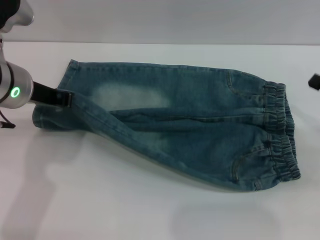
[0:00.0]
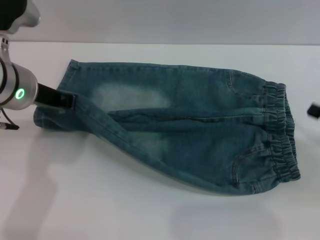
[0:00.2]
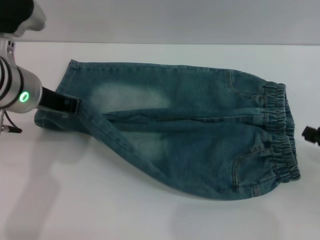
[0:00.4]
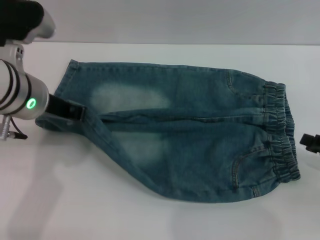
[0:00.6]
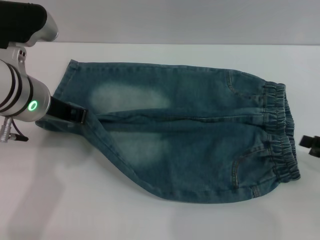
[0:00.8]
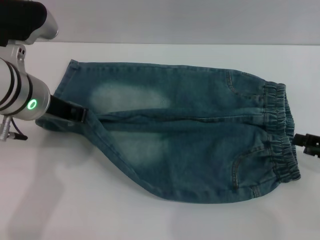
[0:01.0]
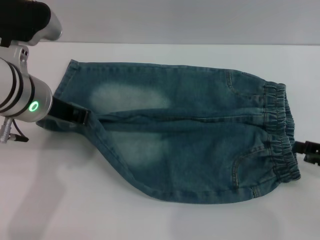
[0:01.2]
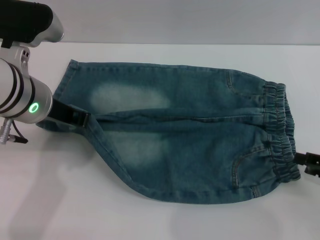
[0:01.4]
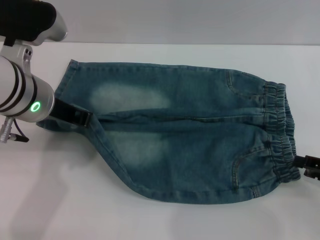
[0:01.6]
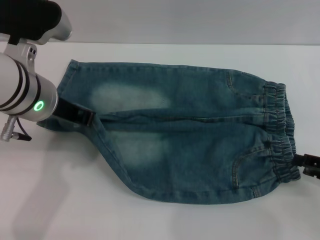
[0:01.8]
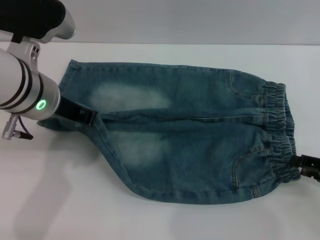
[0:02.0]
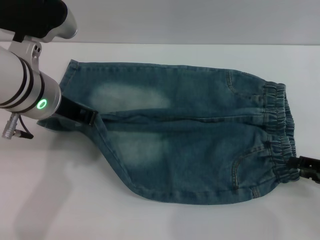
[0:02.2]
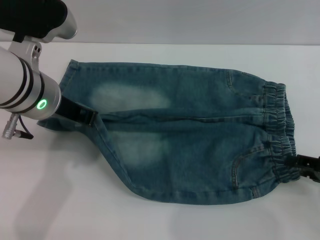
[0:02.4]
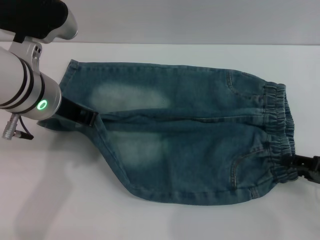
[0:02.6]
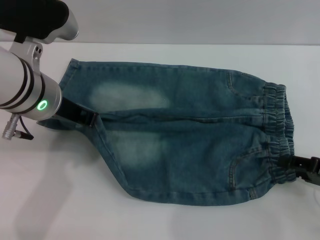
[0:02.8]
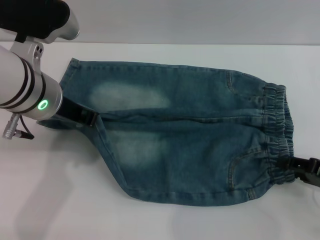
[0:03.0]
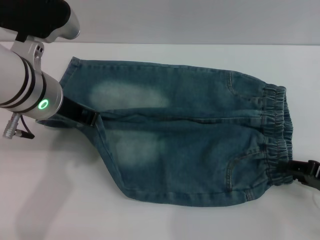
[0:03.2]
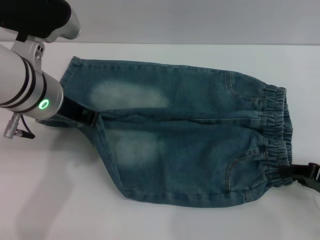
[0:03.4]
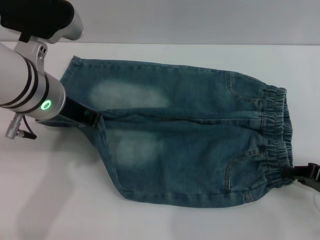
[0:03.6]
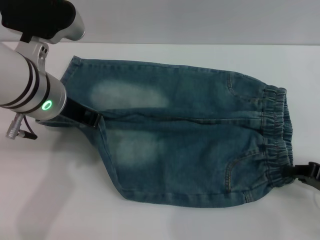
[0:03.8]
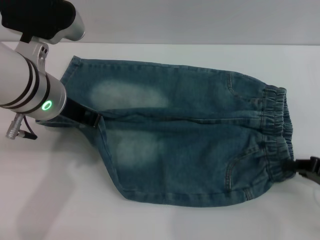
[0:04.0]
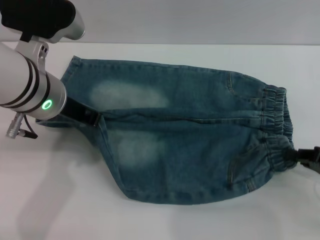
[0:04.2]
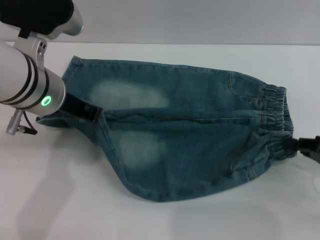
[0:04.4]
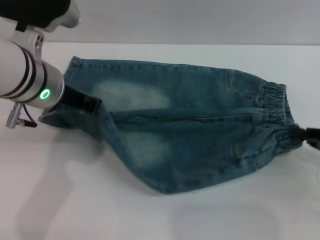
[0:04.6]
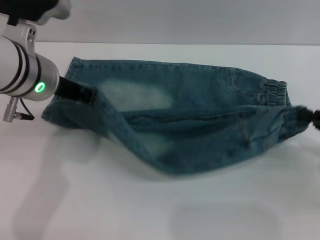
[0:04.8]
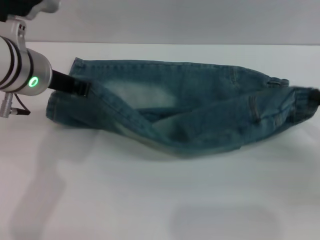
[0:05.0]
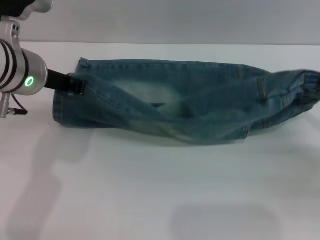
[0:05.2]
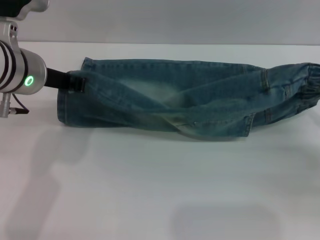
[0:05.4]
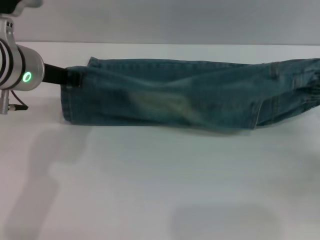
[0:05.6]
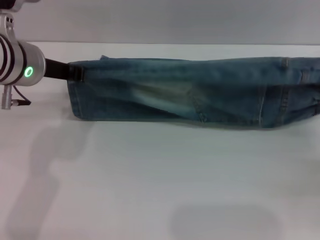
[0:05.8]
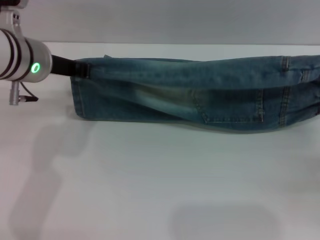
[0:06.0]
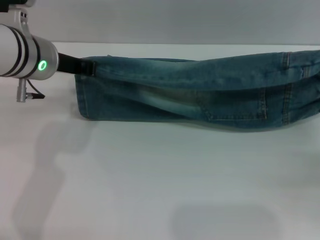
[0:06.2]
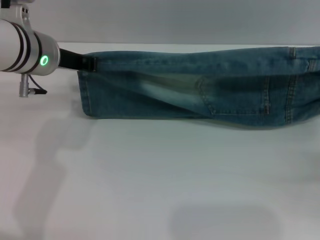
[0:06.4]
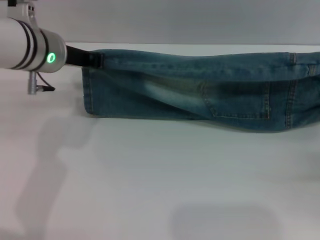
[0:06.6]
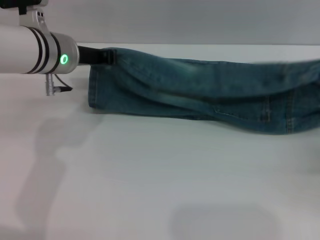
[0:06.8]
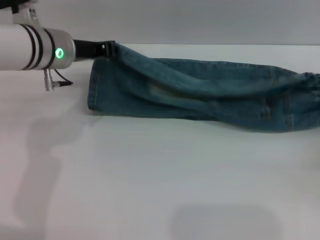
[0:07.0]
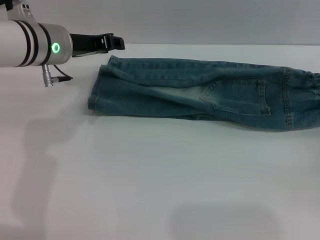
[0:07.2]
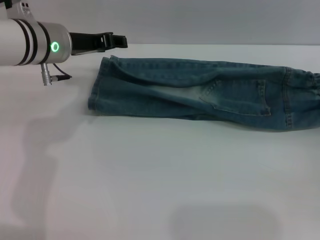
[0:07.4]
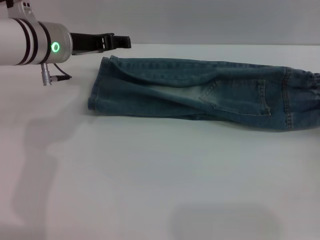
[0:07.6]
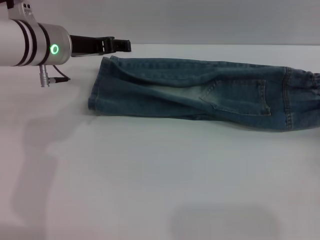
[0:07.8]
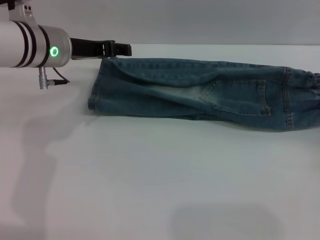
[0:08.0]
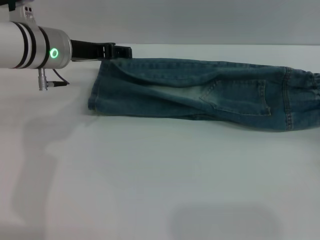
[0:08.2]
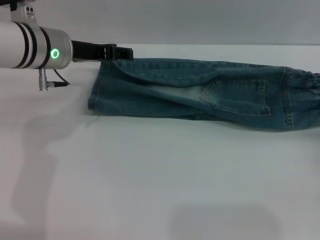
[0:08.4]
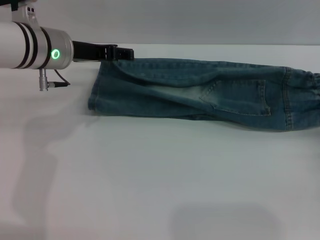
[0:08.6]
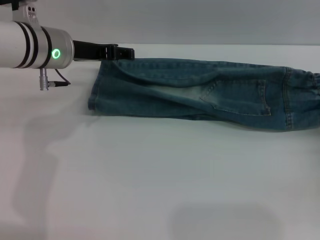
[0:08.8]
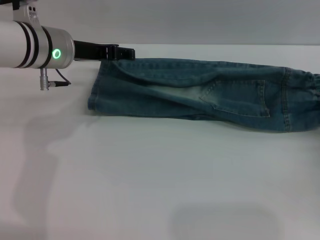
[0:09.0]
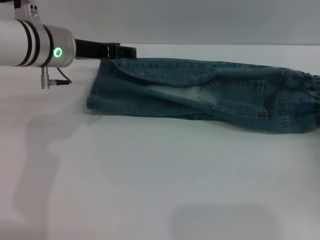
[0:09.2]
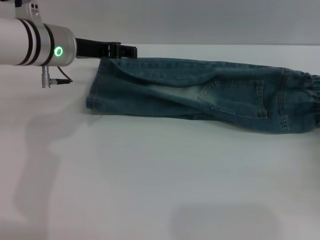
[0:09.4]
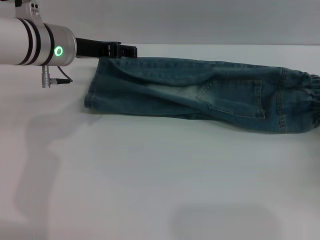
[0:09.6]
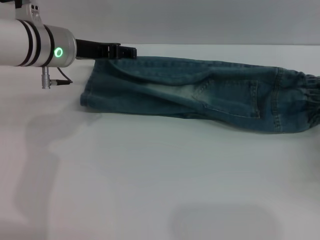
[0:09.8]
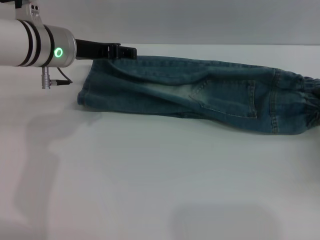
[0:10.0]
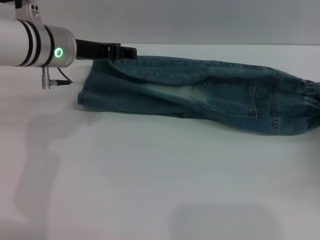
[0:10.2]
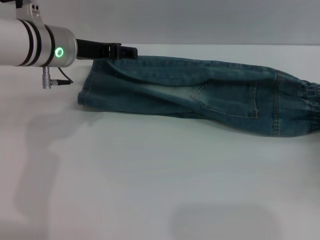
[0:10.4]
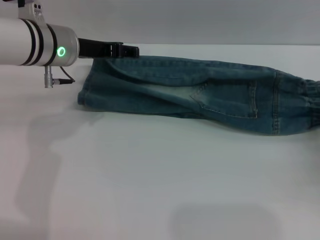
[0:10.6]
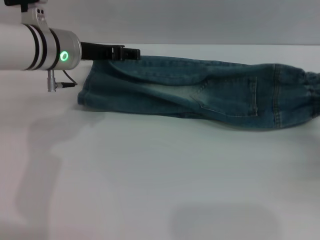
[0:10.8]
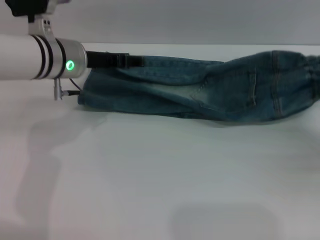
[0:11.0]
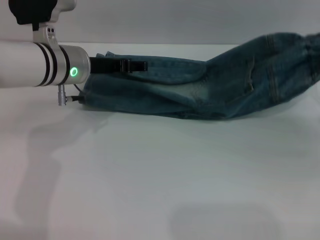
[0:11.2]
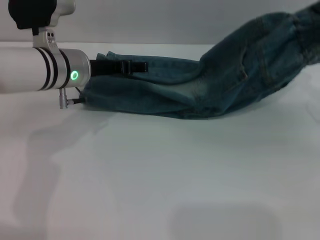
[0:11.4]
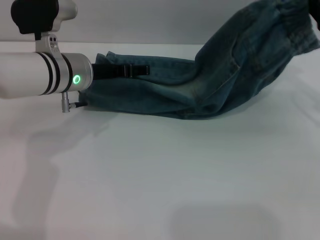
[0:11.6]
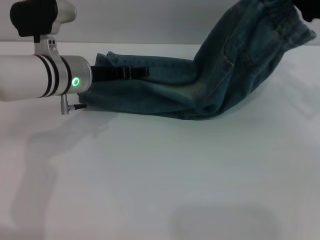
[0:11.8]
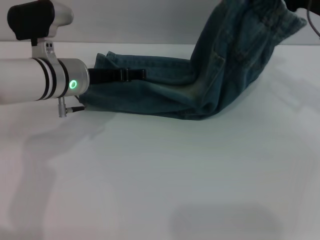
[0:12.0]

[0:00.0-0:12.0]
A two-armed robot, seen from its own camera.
Step, 0:00.0 to 0:07.2: Fold the bottom of the pants upward with both grippers.
0:00.0 to 0:01.6: The right gripper moves backward, roughly 5 cm, and opens its fingers.
0:01.6 to 0:03.0: The grippers move only a little.
0:03.0 to 0:04.4: The right gripper closes up.
0:06.0 to 0:07.6: The right gripper opens up, while the left gripper ends up roughly 5 cm from where it was, and opens up.
0:07.6 to 0:10.4: The grippers stay close to where they were, moving slightly.
0:10.4 to 0:12.0: The right gripper heads upward, forward and to the left, covering approximately 20 cm, and closes its fingers; the left gripper moves downward, roughly 5 cm.

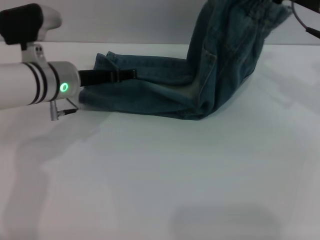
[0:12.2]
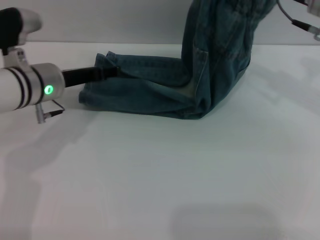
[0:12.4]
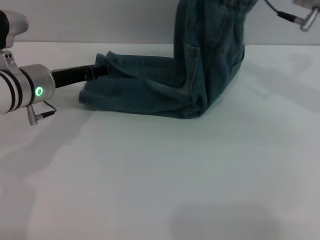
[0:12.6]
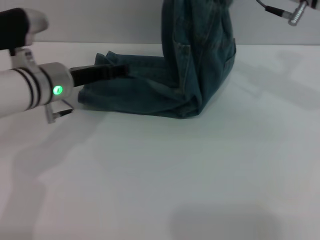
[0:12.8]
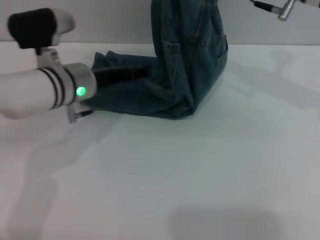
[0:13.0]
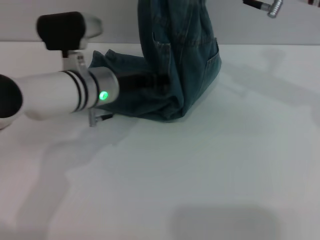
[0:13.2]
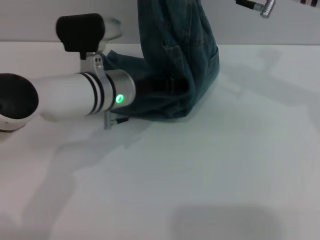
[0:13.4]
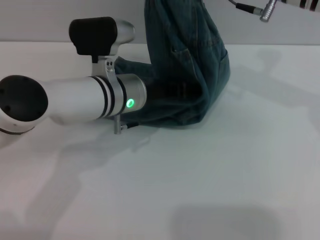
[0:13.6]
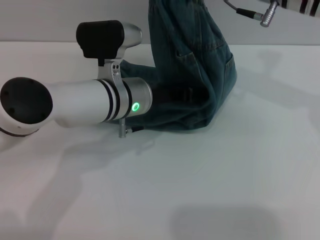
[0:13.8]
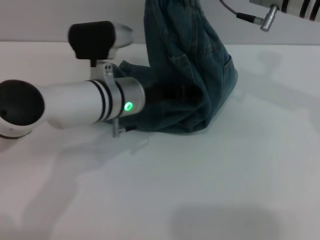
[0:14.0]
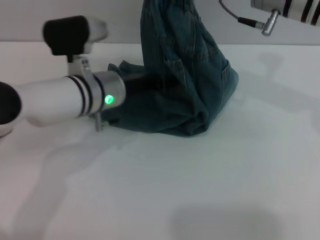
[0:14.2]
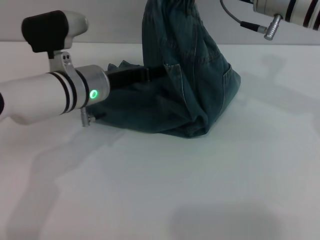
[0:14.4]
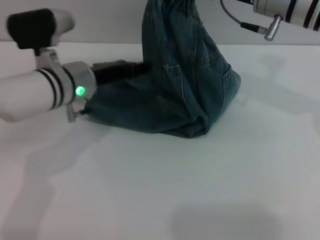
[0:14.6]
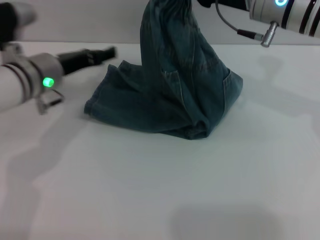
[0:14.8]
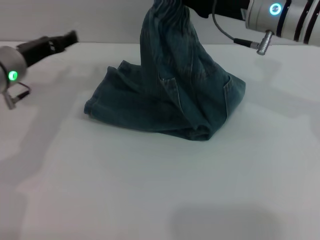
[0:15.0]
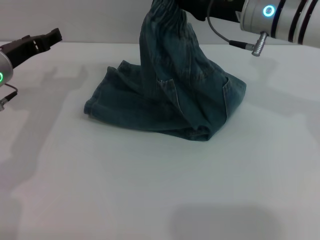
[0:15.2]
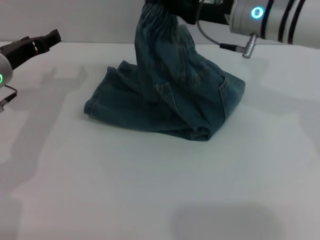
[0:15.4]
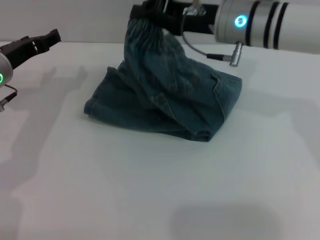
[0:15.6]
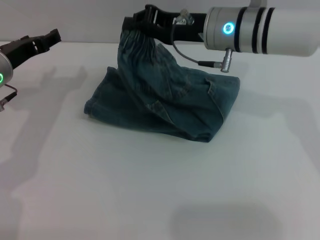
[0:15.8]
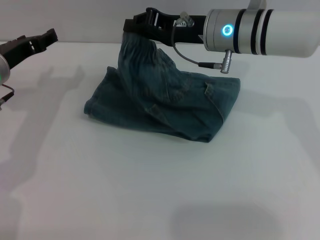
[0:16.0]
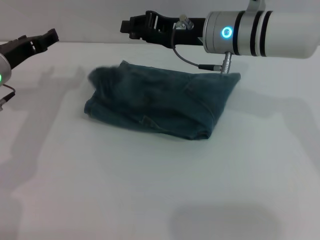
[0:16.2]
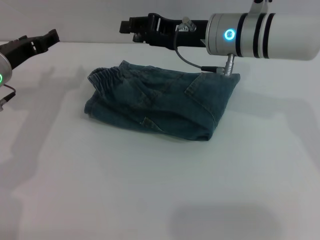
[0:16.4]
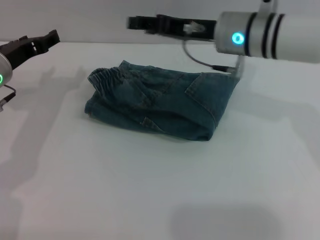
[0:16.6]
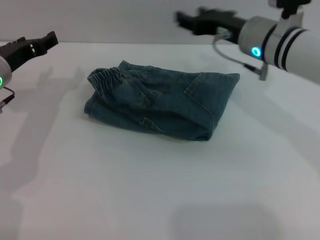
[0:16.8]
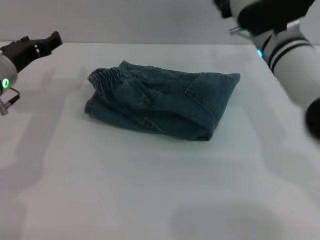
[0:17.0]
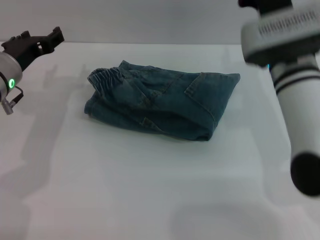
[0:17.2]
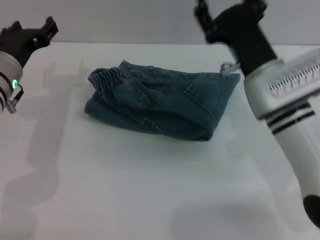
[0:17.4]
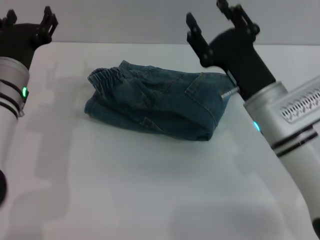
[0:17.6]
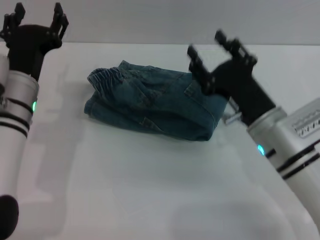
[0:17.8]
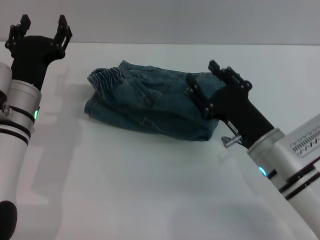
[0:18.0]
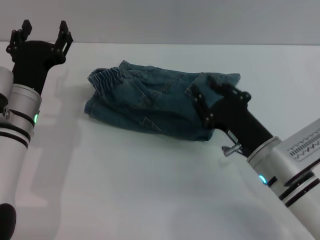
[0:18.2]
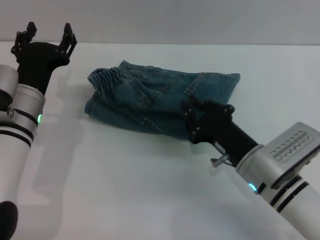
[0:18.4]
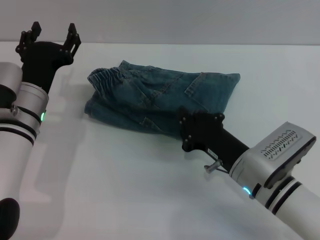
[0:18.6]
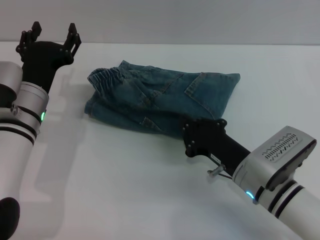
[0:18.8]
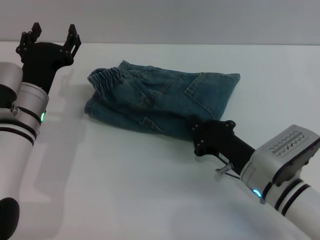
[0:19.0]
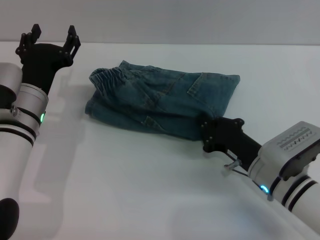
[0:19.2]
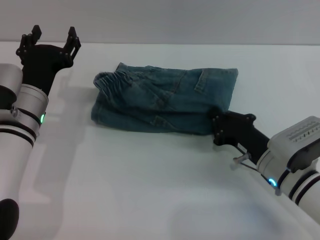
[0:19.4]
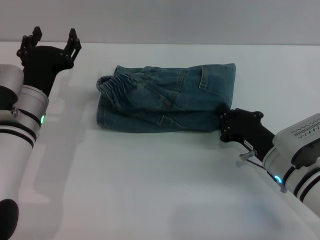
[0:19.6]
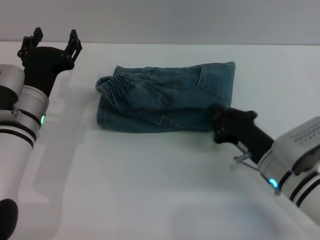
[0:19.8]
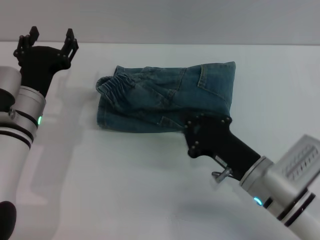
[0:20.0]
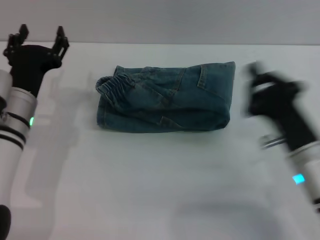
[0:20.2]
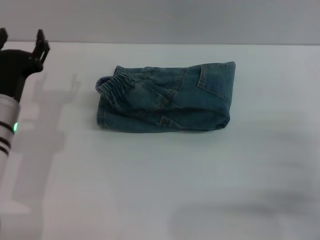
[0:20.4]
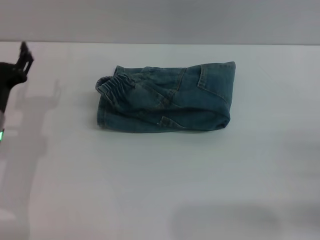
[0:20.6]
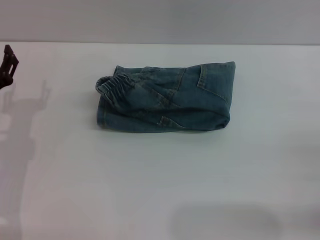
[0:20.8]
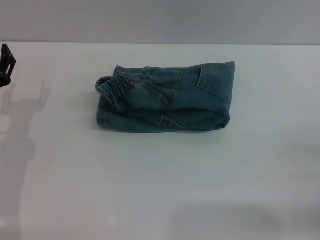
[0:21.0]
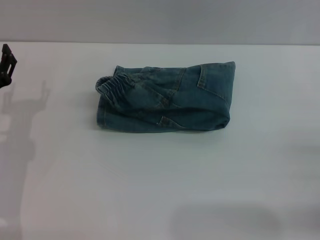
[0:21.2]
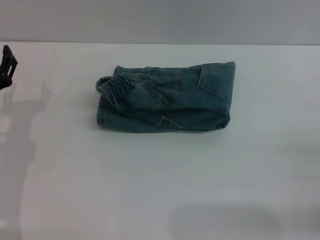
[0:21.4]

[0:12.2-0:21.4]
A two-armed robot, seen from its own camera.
Step, 0:12.2 to 0:16.4: Fold the pants from right to left with the right gripper.
0:12.2 to 0:13.8: The left gripper shifts roughly 10 cm to the right. Meanwhile the right gripper moves to the left, about 10 cm.
0:13.8 to 0:15.2: The left gripper travels to the left by about 20 cm.
0:15.2 to 0:16.8: The right gripper opens.
0:16.8 to 0:18.4: The right gripper travels backward and downward by about 20 cm, and closes; the left gripper moves to the right and downward, approximately 10 cm.
0:18.4 to 0:19.8: There are only small adjustments of the grippers.
0:19.8 to 0:21.4: The left gripper travels to the left by some 10 cm. The right gripper is displaced to the right and backward by about 15 cm, and opens up.

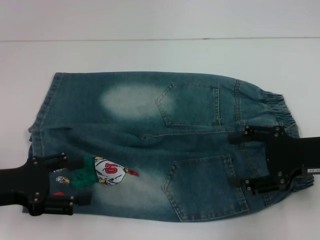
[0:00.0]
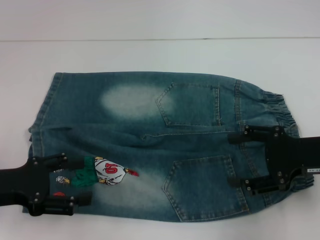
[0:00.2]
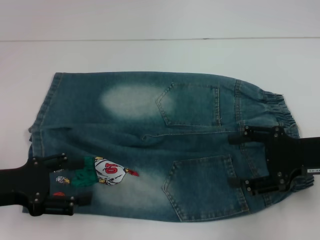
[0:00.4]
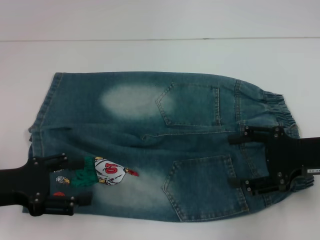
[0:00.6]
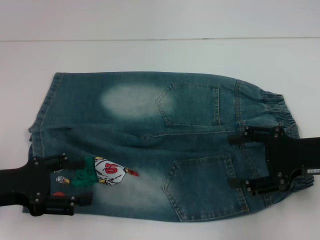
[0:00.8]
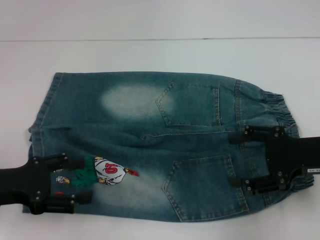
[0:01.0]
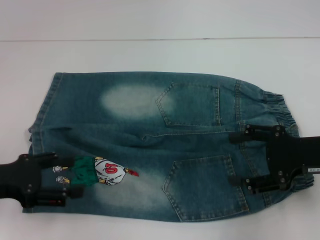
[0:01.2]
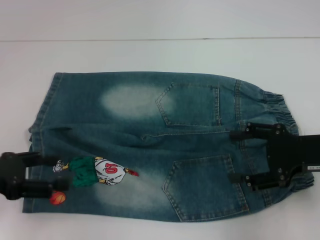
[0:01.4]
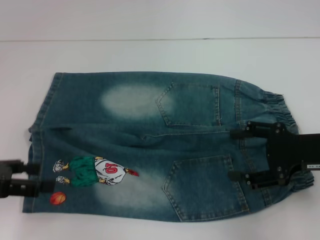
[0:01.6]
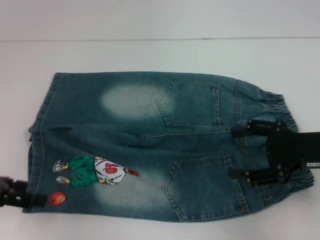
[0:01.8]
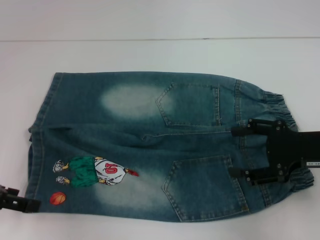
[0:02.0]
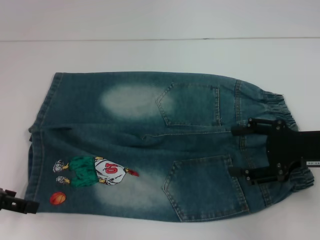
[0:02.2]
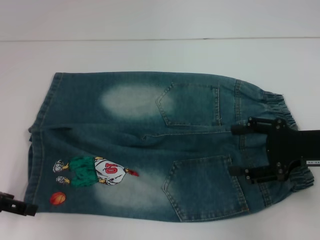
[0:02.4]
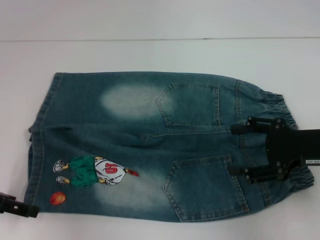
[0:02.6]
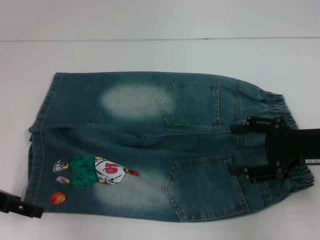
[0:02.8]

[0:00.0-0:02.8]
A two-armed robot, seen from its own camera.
0:00.0 to 0:01.4: There are only small adjustments of the grippers.
